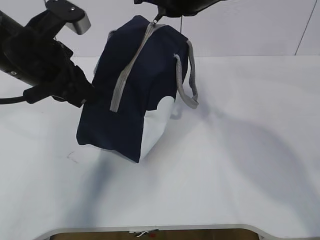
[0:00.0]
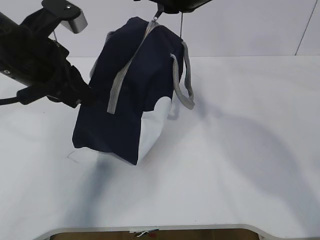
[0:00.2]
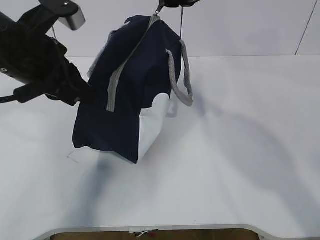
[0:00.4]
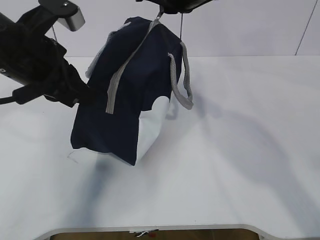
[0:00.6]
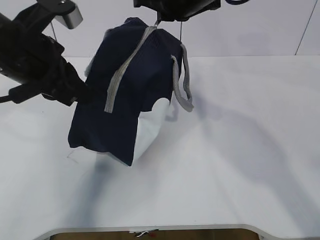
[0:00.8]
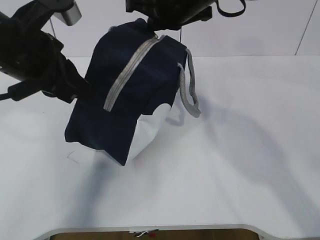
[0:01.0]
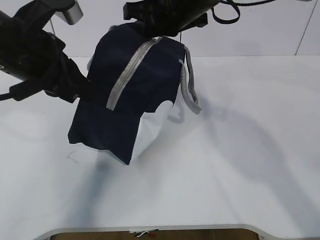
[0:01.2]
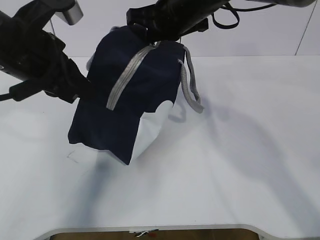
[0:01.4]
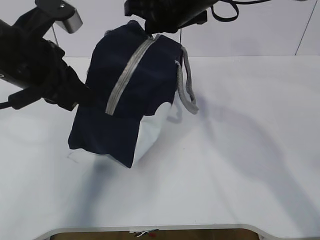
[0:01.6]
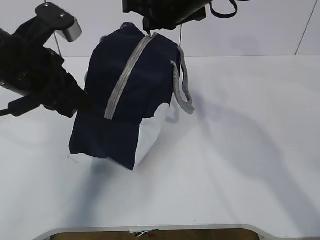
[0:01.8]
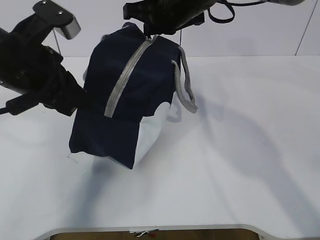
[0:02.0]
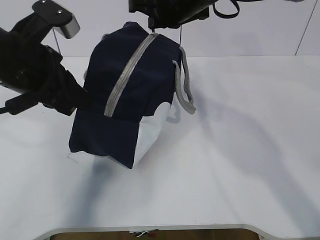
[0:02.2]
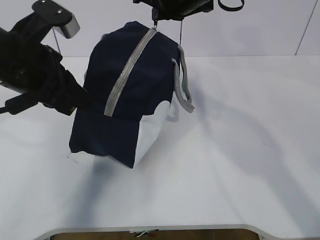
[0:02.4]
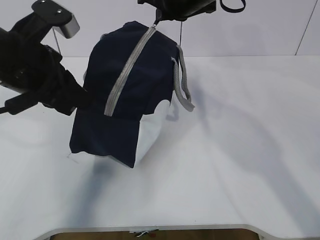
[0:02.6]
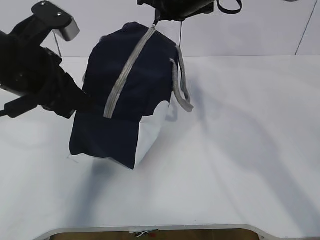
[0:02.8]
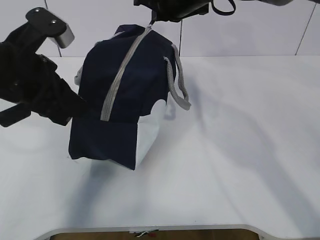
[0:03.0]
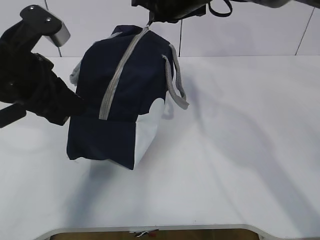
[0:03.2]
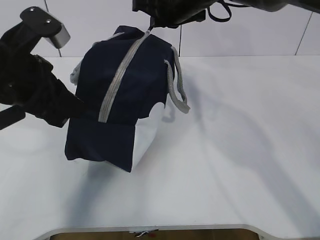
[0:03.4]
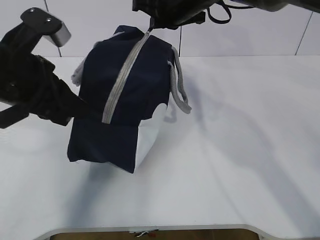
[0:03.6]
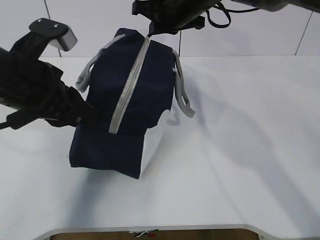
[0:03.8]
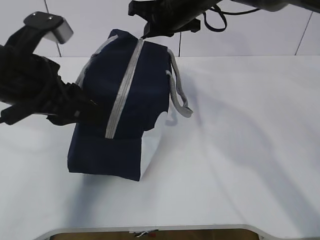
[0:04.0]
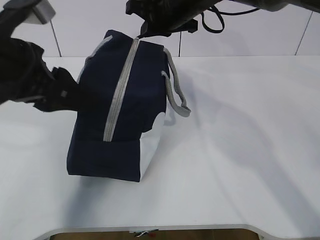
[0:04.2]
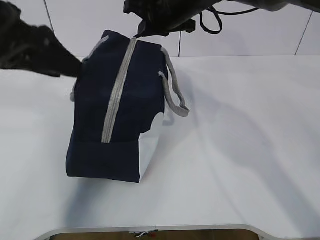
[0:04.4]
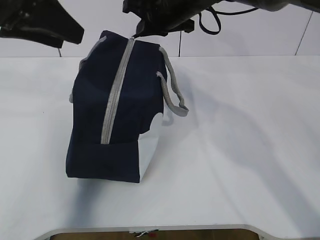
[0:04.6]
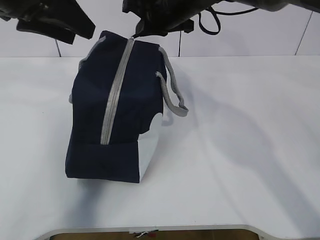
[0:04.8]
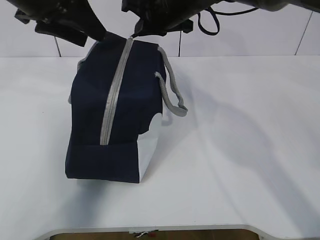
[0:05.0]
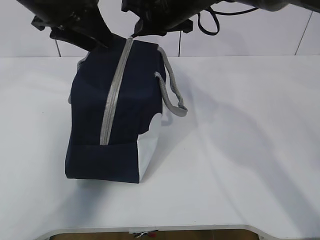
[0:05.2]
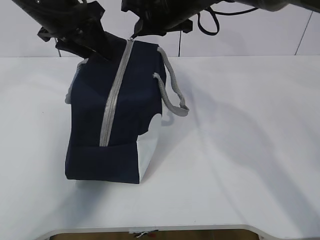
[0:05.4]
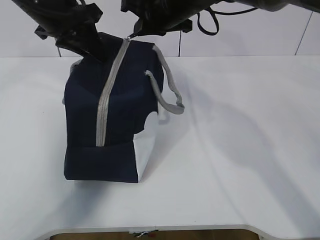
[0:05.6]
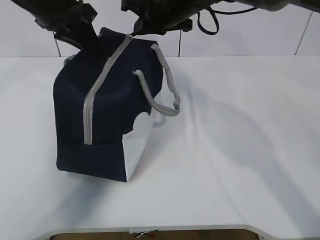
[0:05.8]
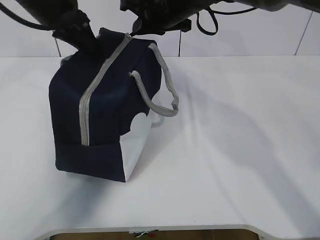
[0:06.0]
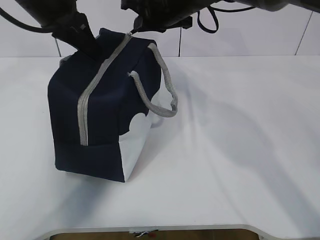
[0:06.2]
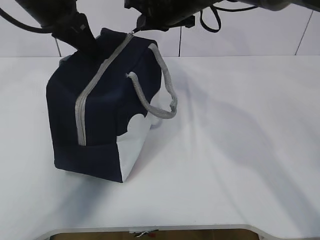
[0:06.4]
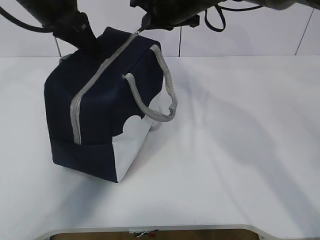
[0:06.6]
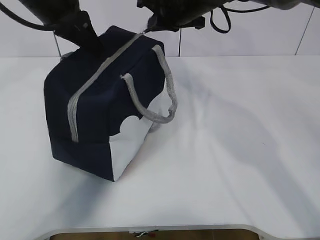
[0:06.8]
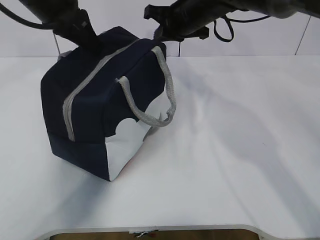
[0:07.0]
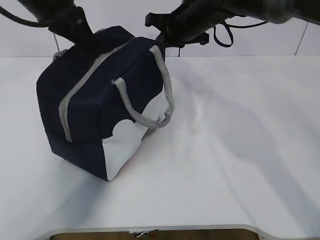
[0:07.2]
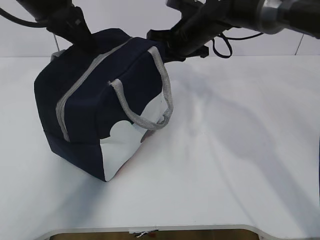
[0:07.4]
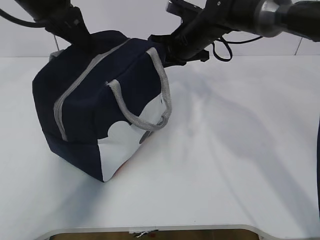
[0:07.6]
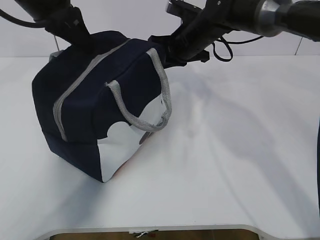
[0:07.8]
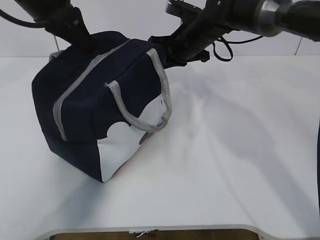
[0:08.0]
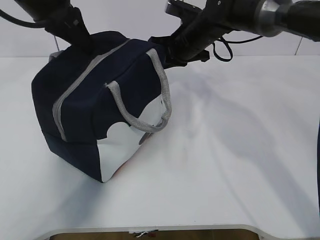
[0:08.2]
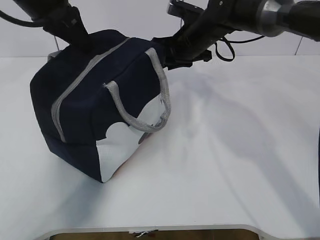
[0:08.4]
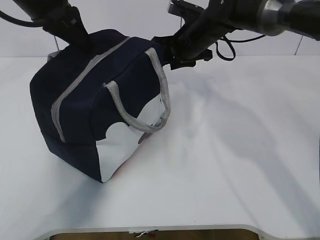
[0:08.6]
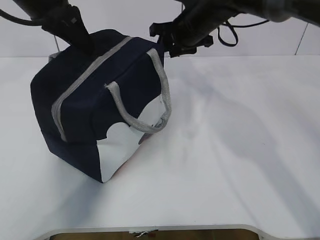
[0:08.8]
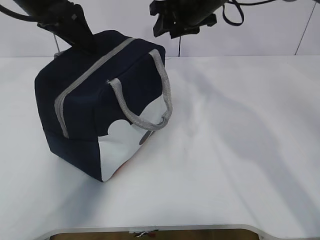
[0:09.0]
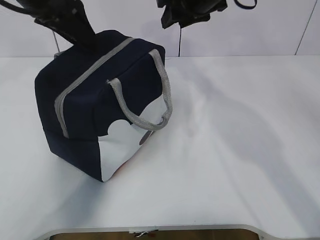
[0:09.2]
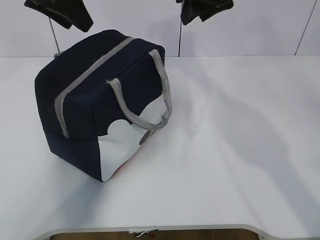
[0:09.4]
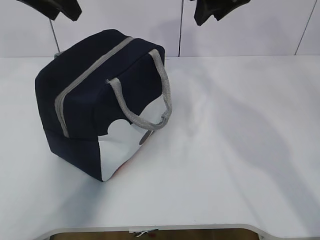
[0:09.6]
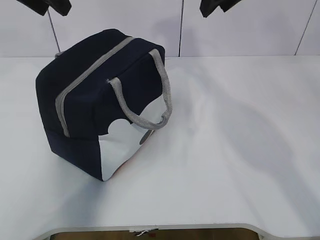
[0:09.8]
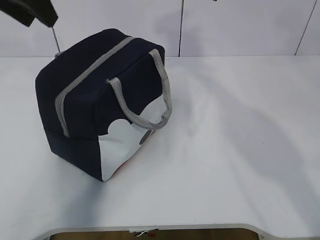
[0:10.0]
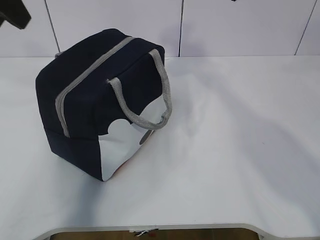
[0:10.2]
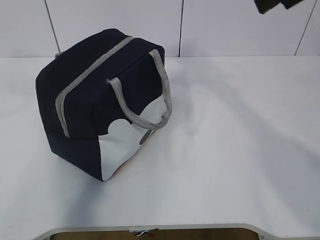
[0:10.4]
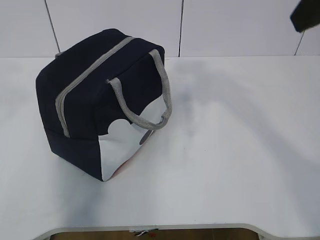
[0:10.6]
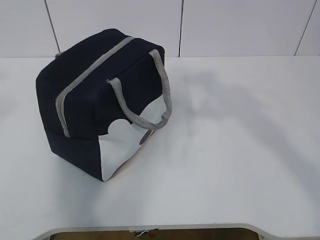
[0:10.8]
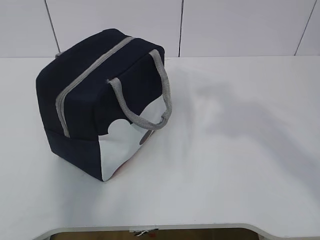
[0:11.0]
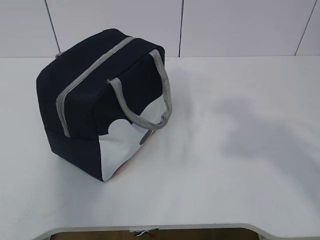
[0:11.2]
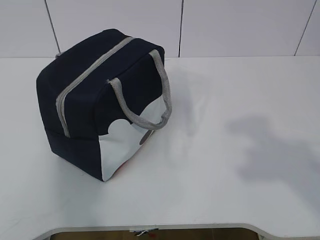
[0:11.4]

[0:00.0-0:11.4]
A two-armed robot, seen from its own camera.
0:00.0 to 0:01.4: The right gripper travels forward by approximately 5 cm.
0:01.4 to 0:02.8: There are only small adjustments of the grippers.
0:02.8 to 0:04.2: The left gripper opens up.
0:04.2 to 0:05.6: The left gripper is displaced forward by roughly 15 cm, and closes up.
0:05.6 to 0:07.2: The right gripper shifts by roughly 5 cm.
0:07.2 to 0:08.6: The right gripper opens.
0:08.6 to 0:10.0: The left gripper goes roughly 5 cm upward, and opens its fingers. The right gripper moves upward and backward, some 20 cm.
0:10.0 to 0:11.4: Both grippers move backward, some 30 cm.

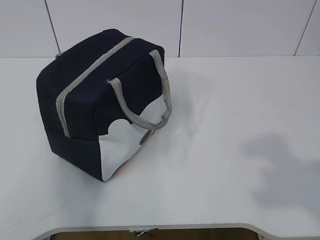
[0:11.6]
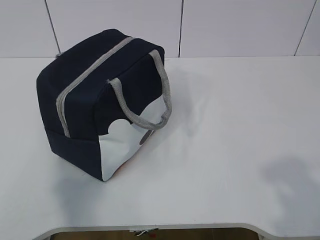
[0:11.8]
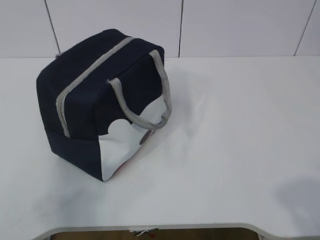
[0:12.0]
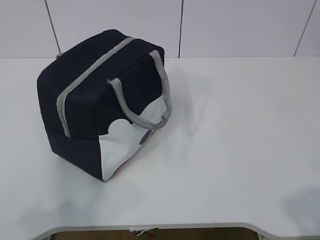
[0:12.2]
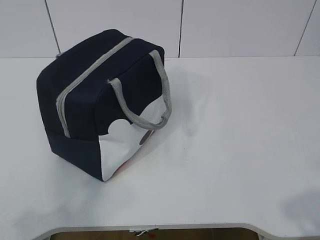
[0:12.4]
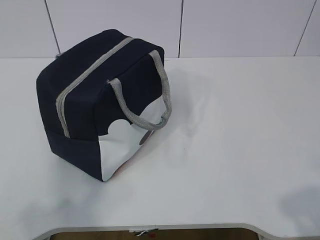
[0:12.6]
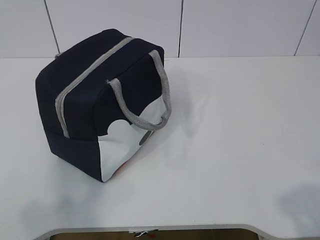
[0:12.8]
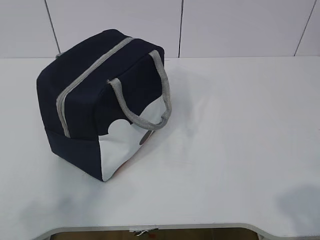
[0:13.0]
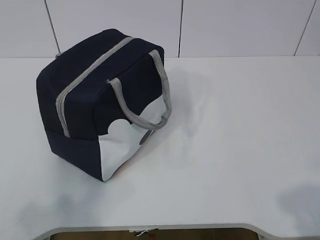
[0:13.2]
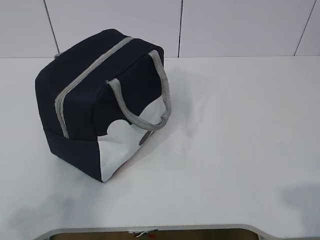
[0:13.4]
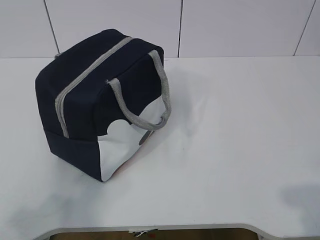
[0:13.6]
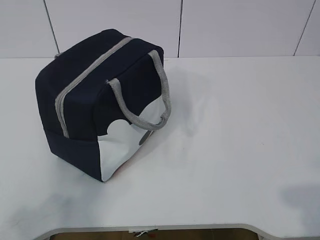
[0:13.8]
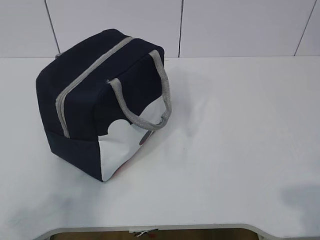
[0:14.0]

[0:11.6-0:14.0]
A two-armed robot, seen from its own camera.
0:11.6 to 0:12.8: The grippers both shift downward by some 10 cm.
